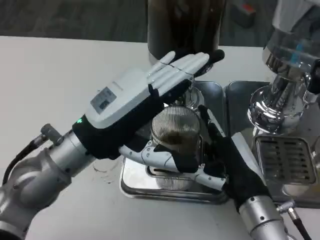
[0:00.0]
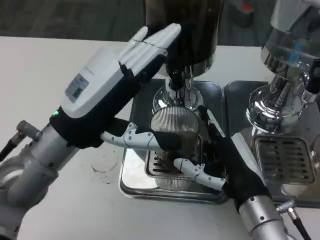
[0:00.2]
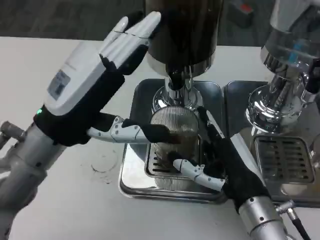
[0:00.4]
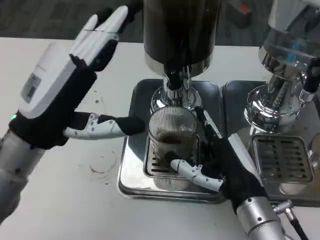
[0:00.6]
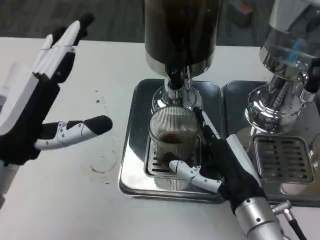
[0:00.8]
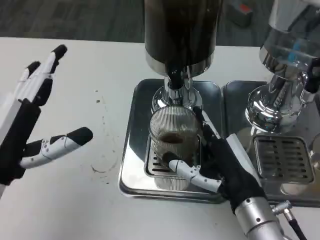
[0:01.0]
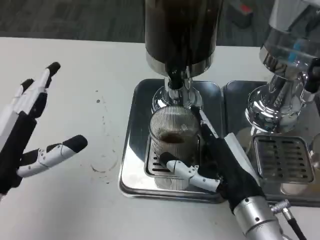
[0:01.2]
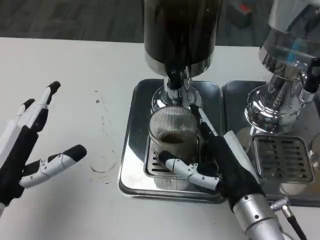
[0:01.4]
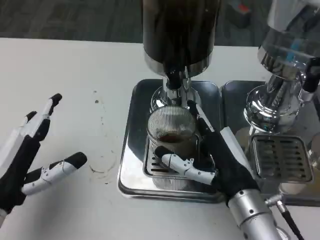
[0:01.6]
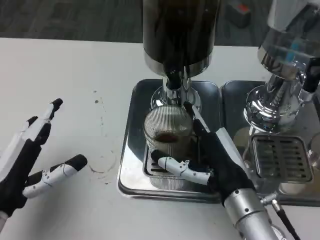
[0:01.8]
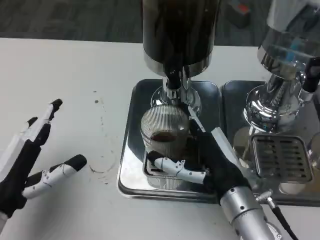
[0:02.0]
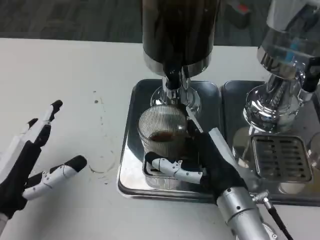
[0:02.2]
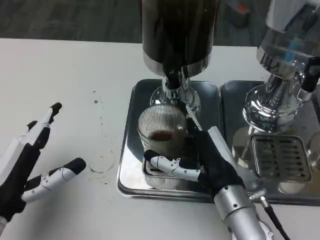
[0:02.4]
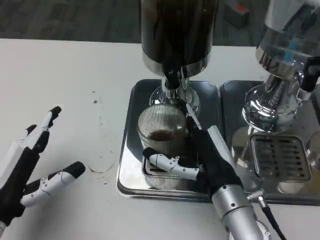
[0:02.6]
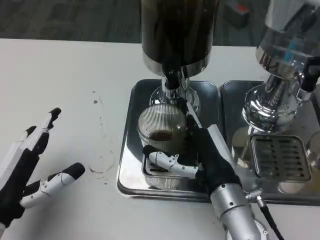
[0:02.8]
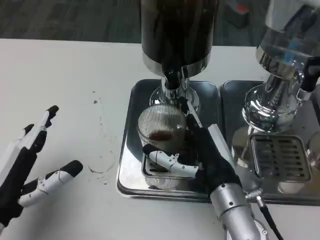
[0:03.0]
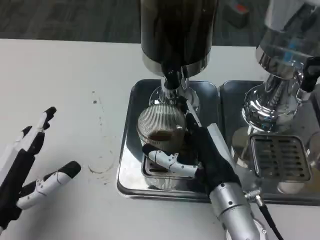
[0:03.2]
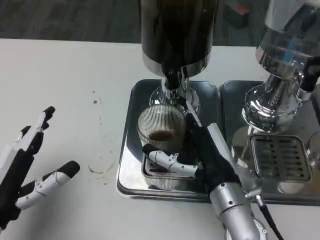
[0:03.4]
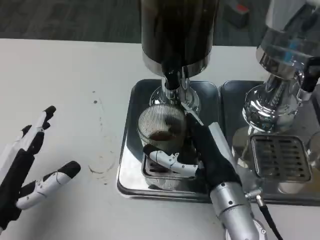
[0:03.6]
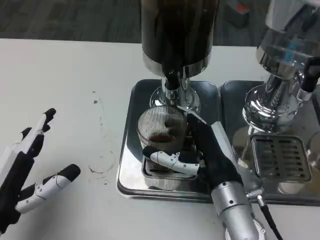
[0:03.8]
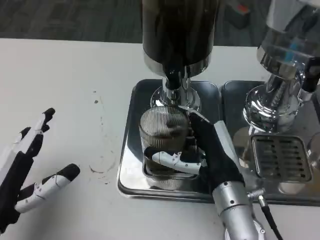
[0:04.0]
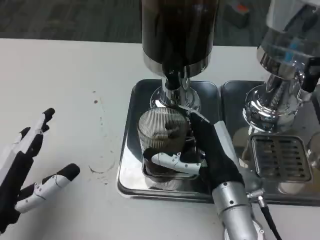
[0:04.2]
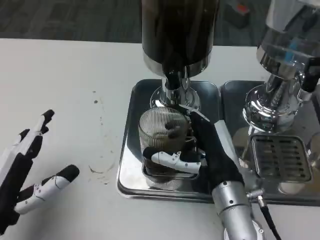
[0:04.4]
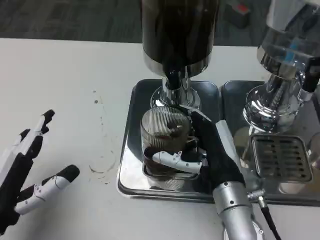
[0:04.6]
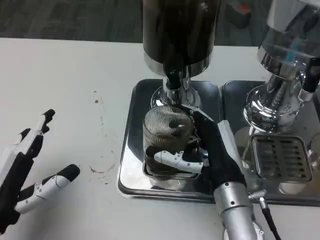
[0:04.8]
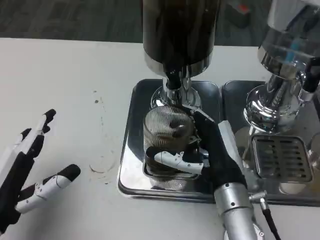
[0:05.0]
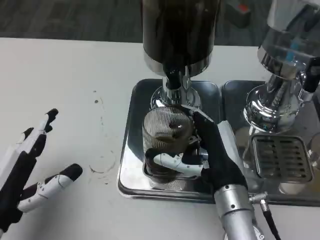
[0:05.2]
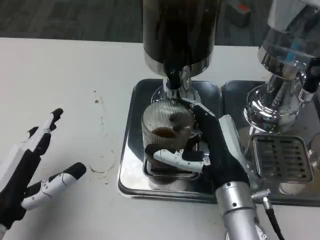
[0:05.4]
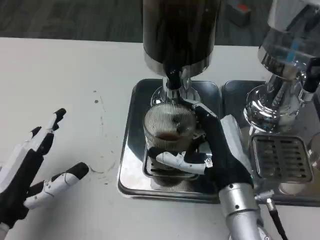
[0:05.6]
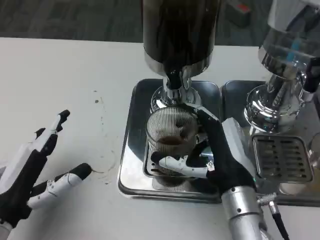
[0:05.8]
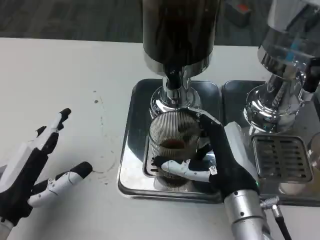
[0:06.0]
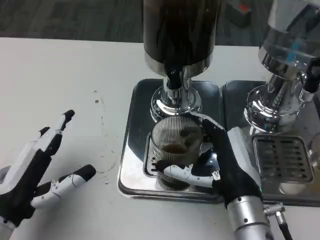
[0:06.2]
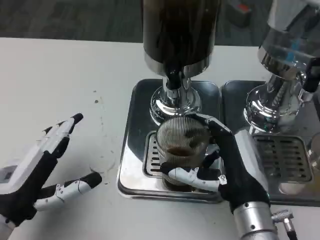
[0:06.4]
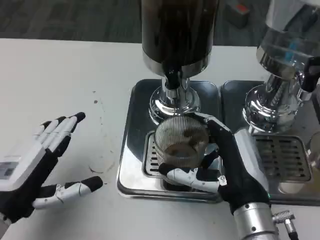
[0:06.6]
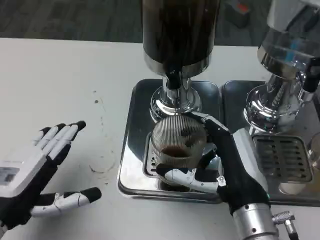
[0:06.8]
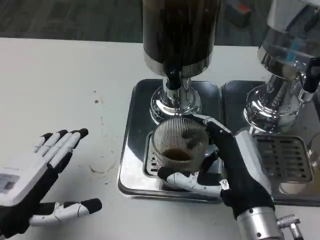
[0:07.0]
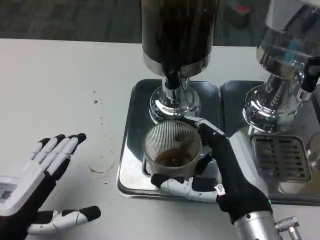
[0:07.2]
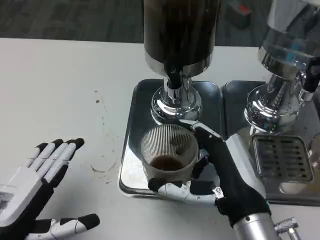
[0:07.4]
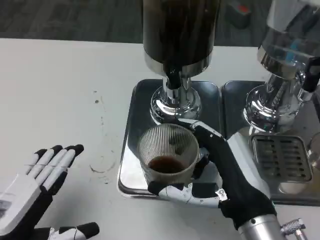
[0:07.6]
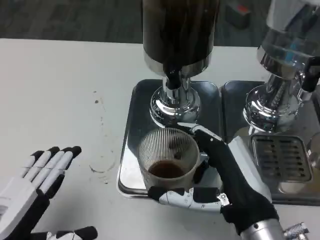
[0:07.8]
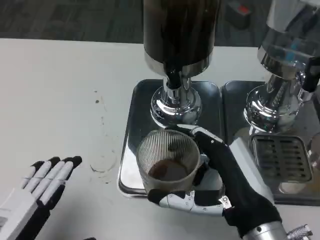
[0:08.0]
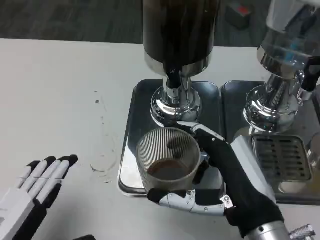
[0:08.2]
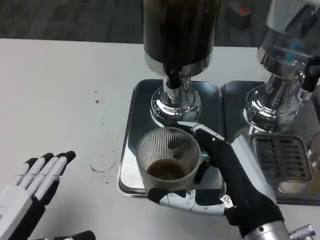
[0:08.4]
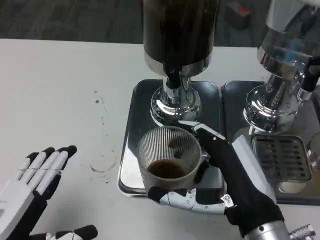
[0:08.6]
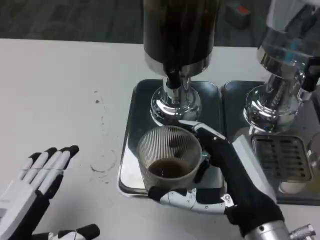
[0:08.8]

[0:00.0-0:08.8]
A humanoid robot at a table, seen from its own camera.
Task of the whole recording: Grasp the cup under the faucet to collect the drink, then remove the cup.
0:00.0 to 0:01.4: The left hand travels to the left, backward and downward by approximately 15 cm.
0:03.0 to 0:04.4: The hands move only a little.
0:05.8 to 0:07.4: The right hand changes place by some 5 cm.
0:07.4 to 0:08.8: The hands make only small movements.

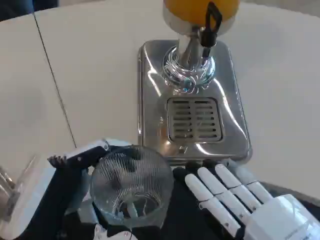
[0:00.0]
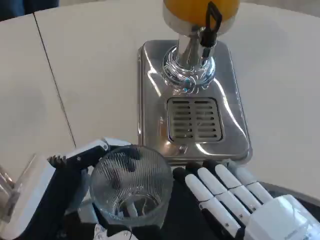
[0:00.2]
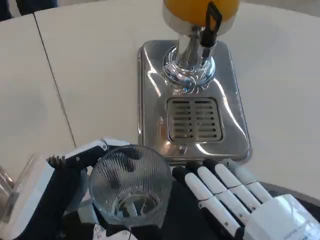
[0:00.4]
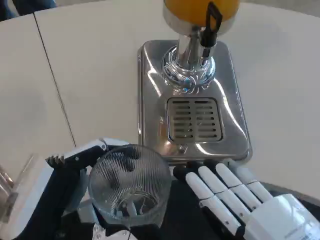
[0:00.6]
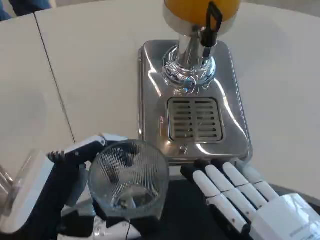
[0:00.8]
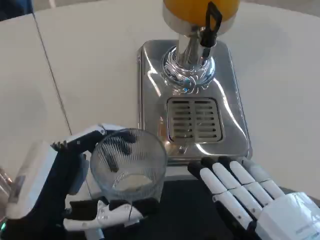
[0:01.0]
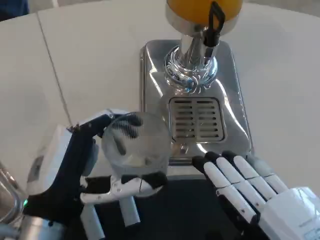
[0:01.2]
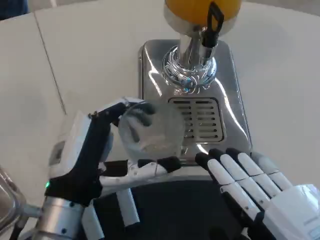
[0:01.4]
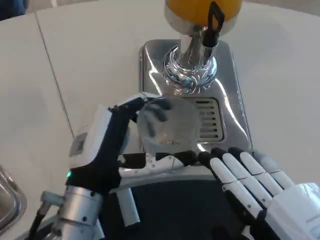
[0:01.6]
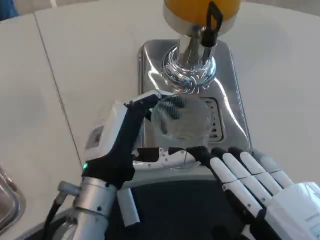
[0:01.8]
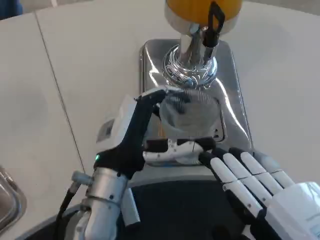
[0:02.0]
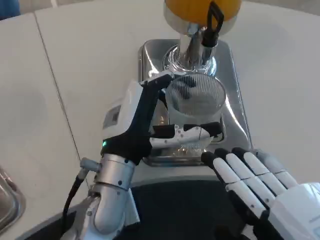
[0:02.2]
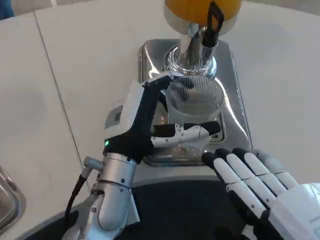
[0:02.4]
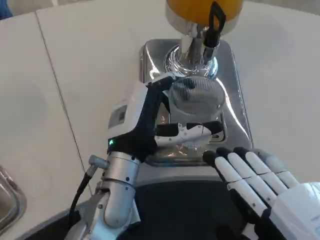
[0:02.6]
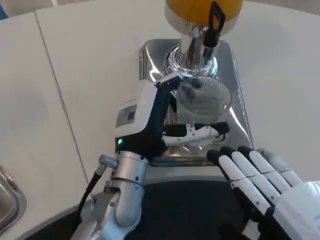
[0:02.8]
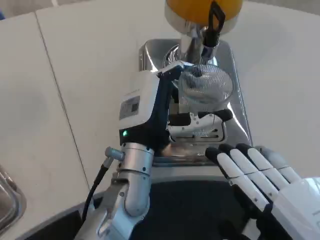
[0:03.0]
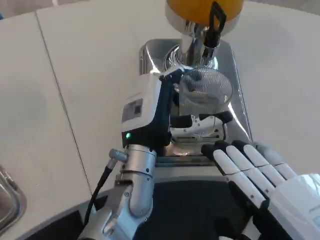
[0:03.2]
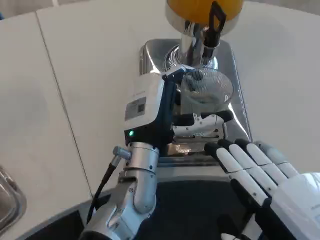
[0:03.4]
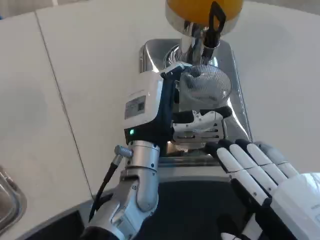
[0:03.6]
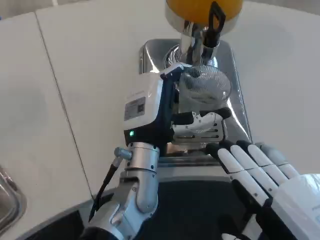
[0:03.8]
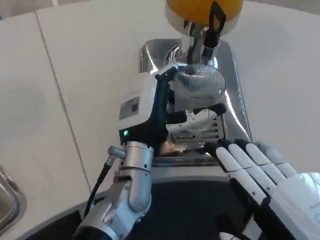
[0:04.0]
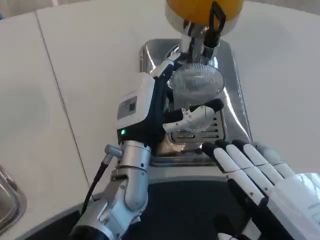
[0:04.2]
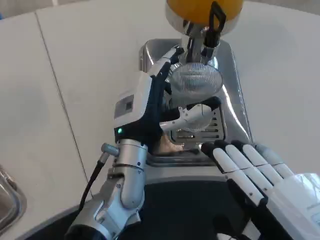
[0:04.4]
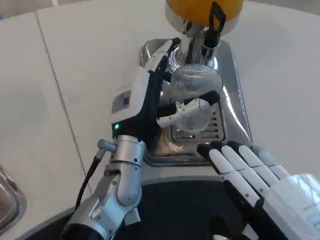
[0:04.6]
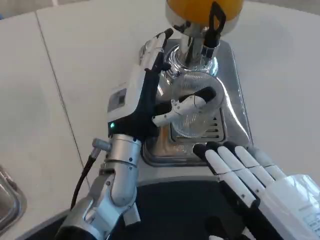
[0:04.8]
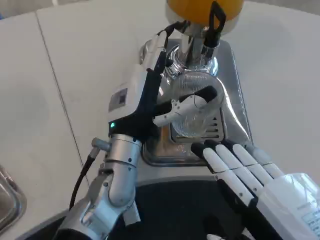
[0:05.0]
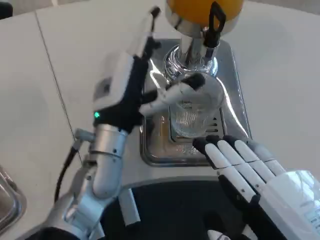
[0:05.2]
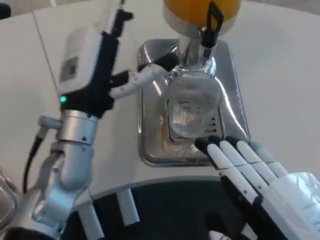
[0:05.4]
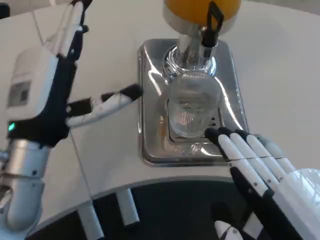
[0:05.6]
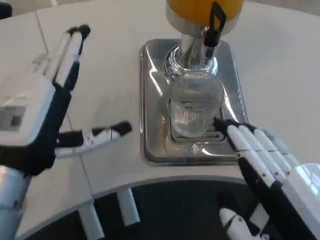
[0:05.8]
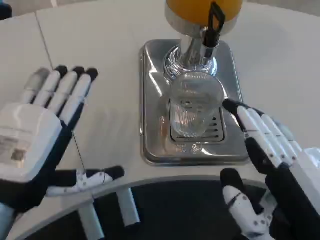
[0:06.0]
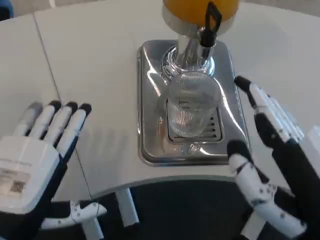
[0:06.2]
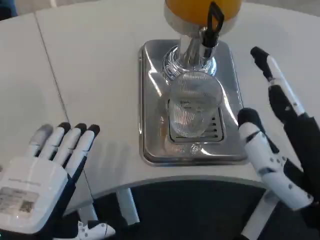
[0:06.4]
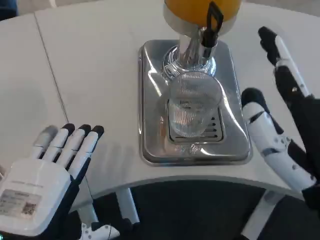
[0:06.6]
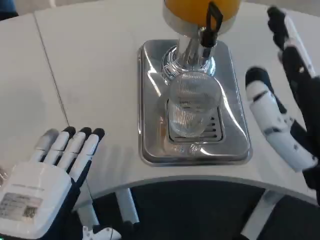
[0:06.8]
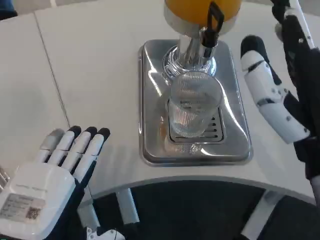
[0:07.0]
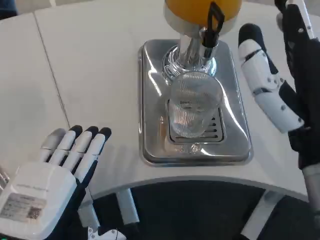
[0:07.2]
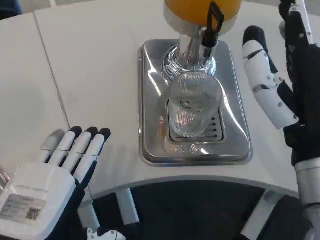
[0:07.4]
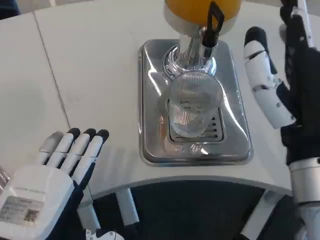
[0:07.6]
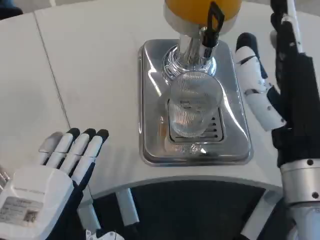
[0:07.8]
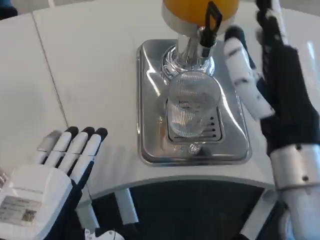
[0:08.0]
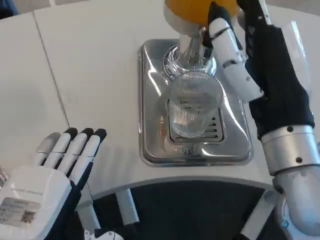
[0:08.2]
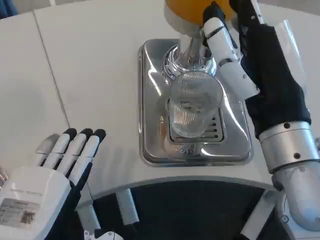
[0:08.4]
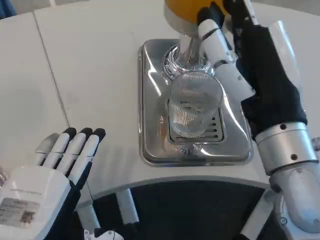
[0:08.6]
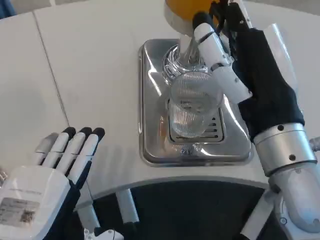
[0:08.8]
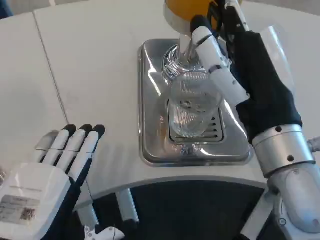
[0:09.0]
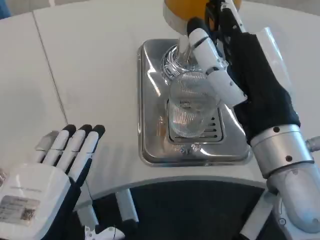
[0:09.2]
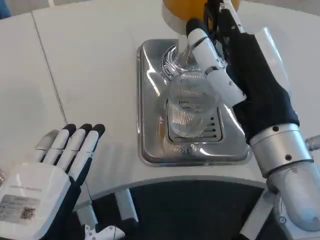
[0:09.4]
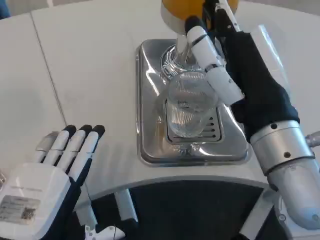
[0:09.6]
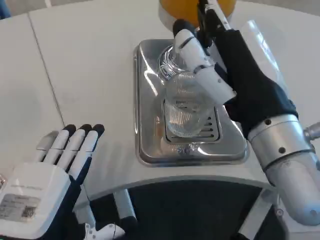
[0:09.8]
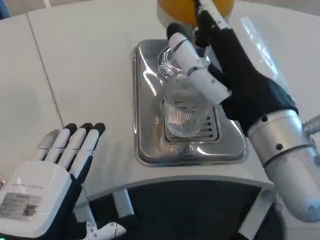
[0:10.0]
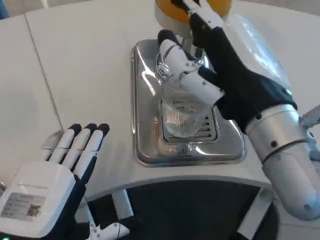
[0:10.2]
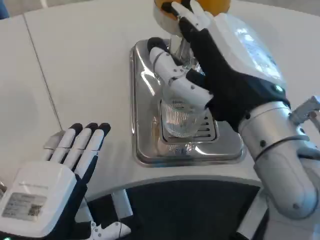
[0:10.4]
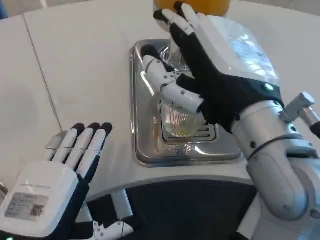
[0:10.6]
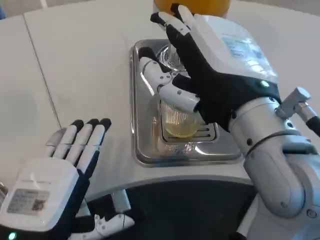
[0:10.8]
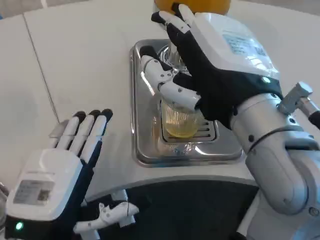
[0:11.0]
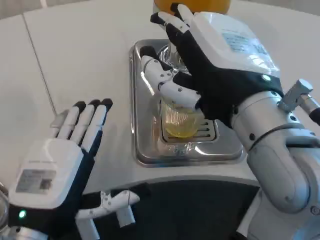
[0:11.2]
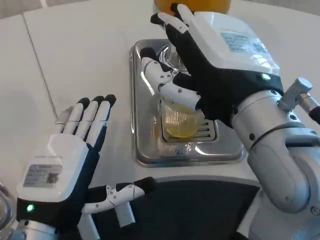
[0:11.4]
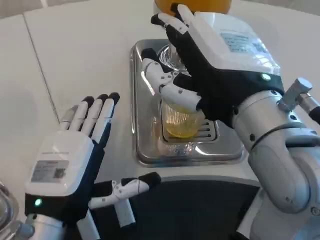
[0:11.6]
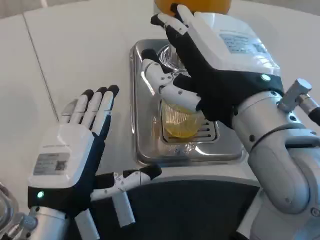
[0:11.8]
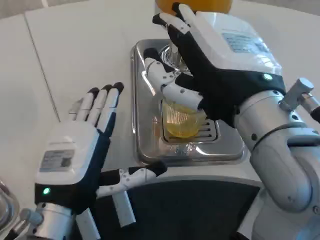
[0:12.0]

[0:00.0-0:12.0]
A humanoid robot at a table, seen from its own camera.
Task of the whole recording: Grasp the cup under the faucet to collect the drink, then remove the cup.
0:00.0 to 0:01.6: The left hand goes some 10 cm forward and to the right.
0:01.6 to 0:03.0: The left hand heads forward and to the right, covering roughly 10 cm.
0:03.0 to 0:04.4: The hands move only a little.
0:04.4 to 0:06.0: The left hand shifts some 20 cm backward and to the left.
0:06.0 to 0:07.6: The left hand shifts by about 5 cm. The right hand goes approximately 10 cm forward.
0:10.4 to 0:12.0: The left hand heads forward, covering about 5 cm.

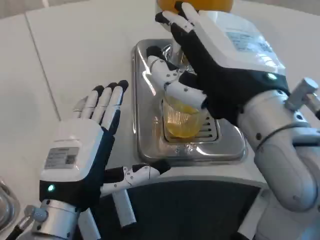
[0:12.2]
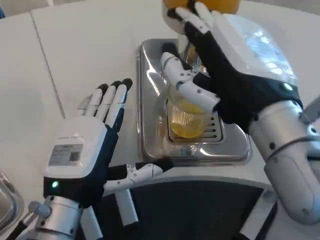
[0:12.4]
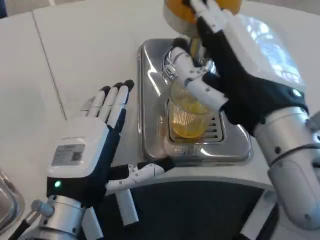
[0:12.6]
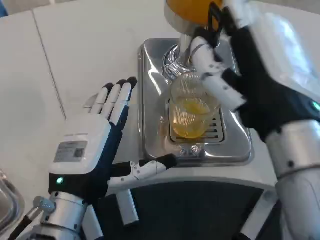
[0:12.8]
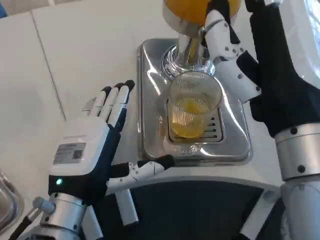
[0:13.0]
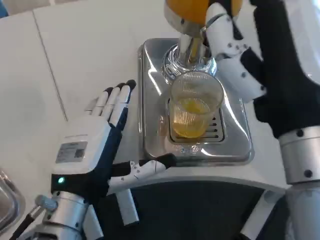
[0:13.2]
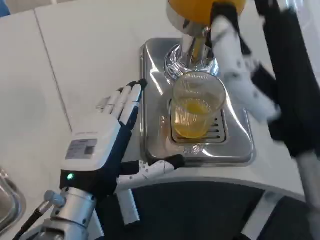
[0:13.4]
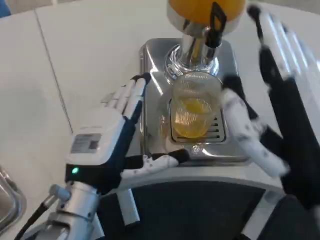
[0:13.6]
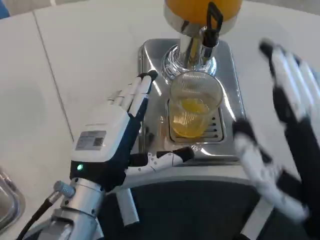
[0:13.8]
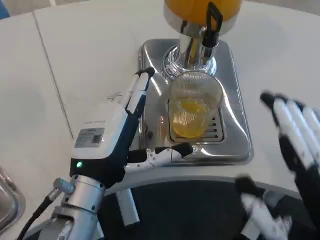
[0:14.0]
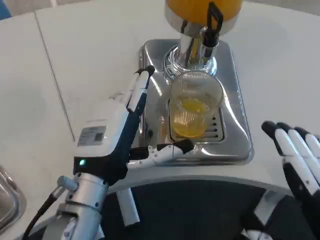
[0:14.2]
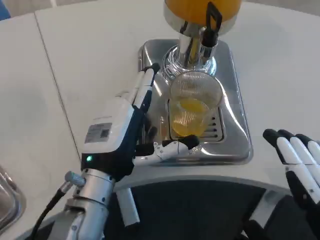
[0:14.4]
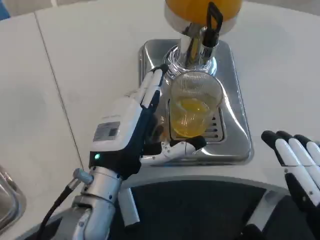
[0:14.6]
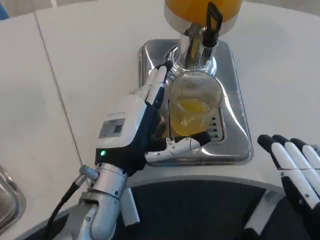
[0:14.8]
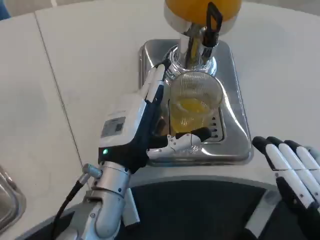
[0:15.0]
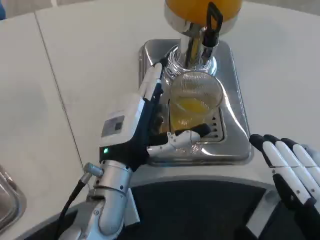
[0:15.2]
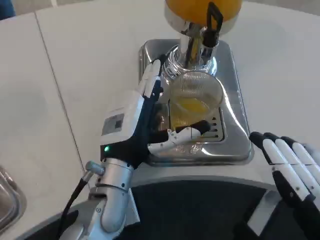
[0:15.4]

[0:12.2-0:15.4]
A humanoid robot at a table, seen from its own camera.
Task of the whole recording: Grasp the cup under the faucet to collect the drink, then remove the cup.
0:12.2 to 0:13.8: The right hand is displaced downward, backward and to the right by roughly 15 cm.
0:13.8 to 0:15.4: The right hand ends up some 5 cm from where it was, while the left hand ends up some 5 cm from where it was.
